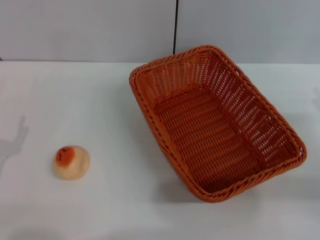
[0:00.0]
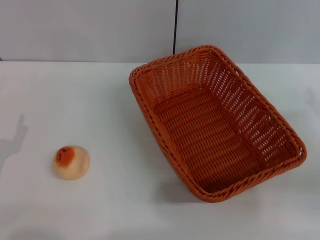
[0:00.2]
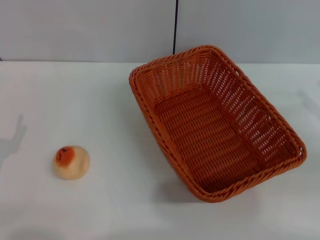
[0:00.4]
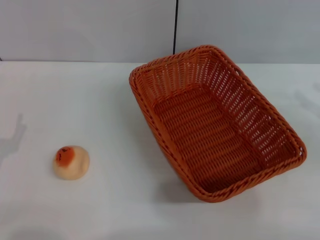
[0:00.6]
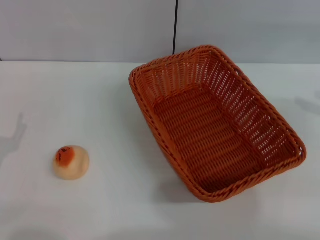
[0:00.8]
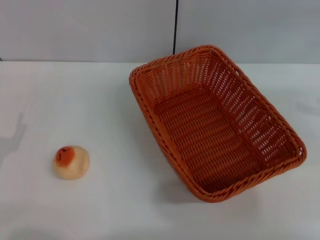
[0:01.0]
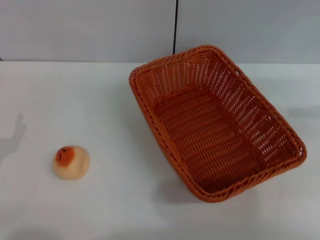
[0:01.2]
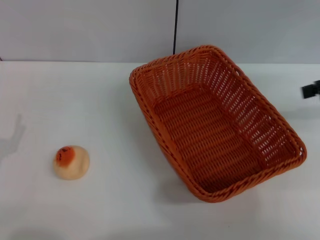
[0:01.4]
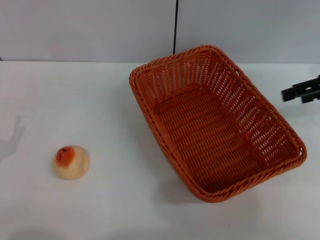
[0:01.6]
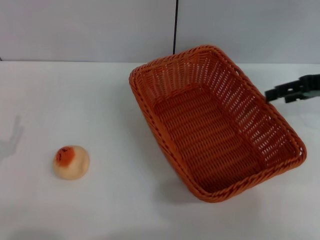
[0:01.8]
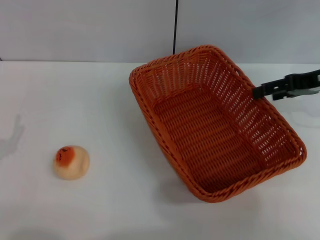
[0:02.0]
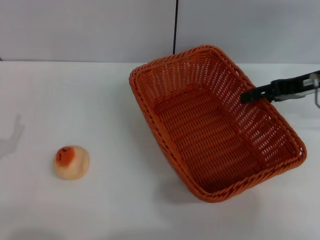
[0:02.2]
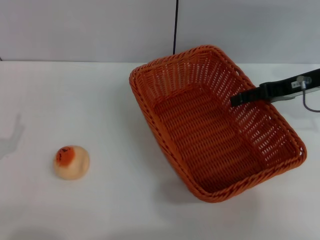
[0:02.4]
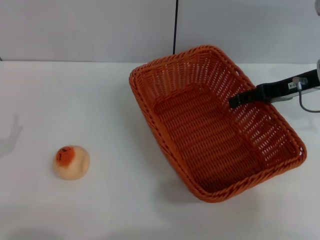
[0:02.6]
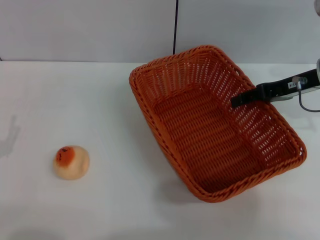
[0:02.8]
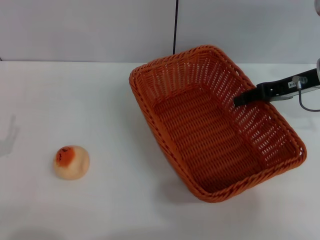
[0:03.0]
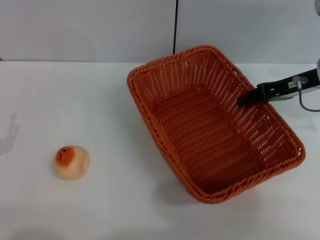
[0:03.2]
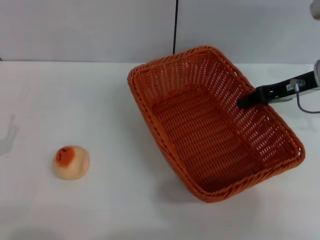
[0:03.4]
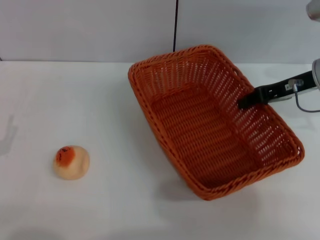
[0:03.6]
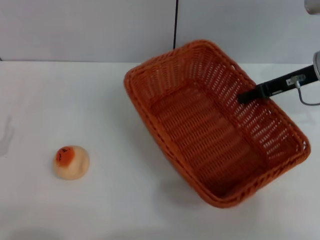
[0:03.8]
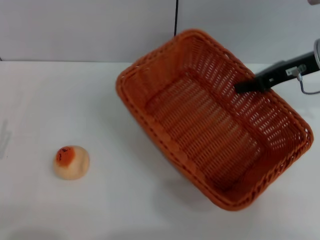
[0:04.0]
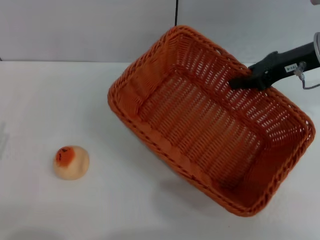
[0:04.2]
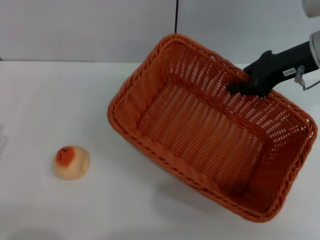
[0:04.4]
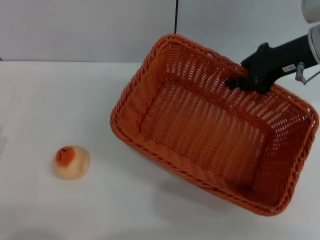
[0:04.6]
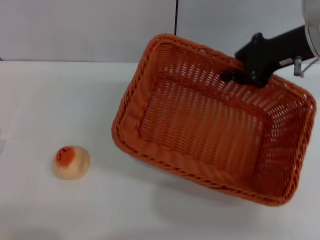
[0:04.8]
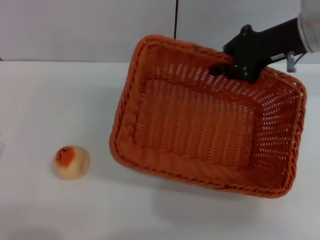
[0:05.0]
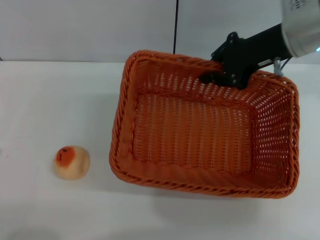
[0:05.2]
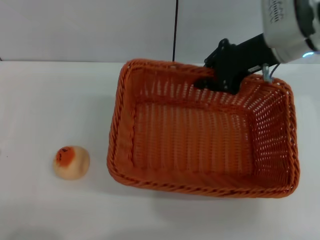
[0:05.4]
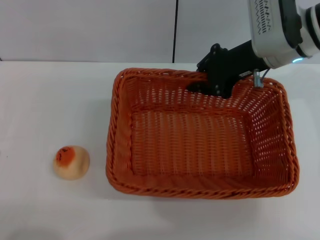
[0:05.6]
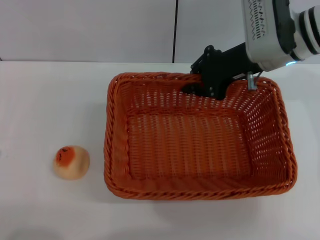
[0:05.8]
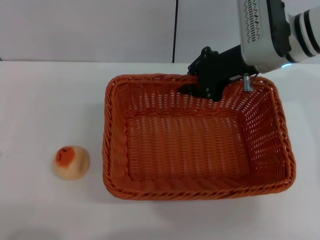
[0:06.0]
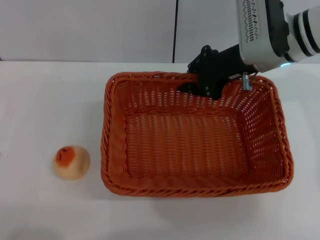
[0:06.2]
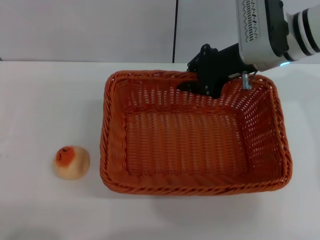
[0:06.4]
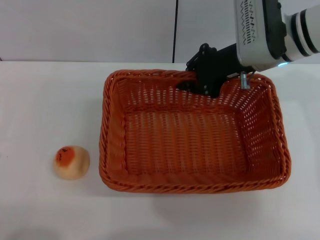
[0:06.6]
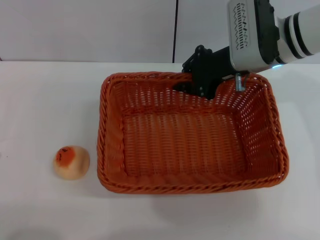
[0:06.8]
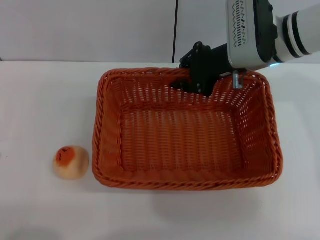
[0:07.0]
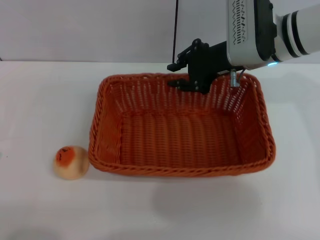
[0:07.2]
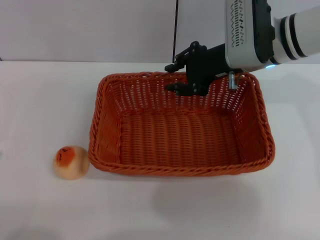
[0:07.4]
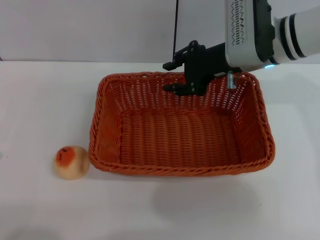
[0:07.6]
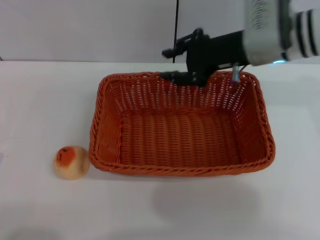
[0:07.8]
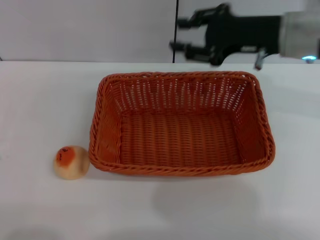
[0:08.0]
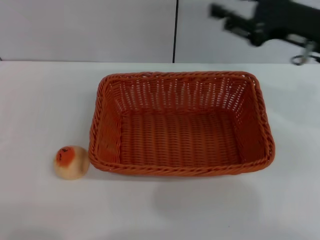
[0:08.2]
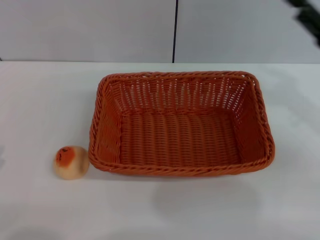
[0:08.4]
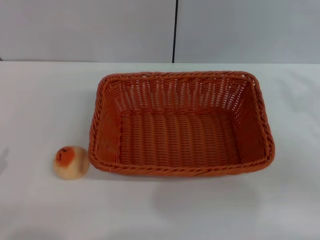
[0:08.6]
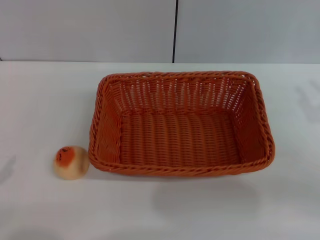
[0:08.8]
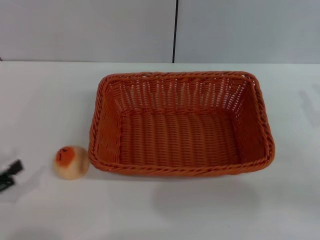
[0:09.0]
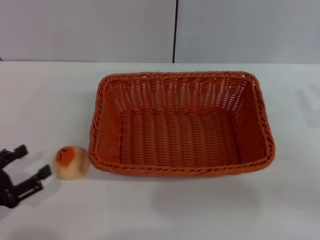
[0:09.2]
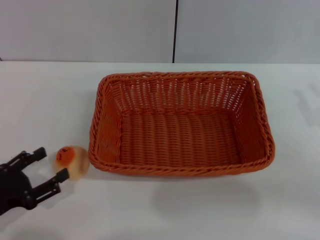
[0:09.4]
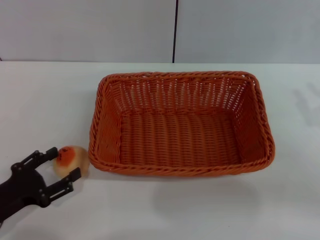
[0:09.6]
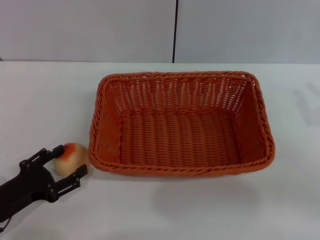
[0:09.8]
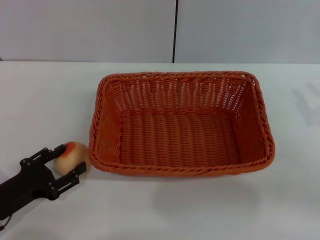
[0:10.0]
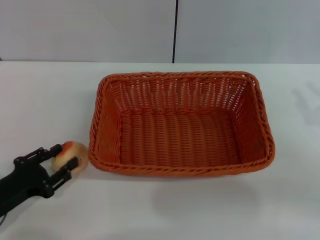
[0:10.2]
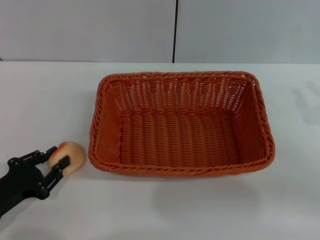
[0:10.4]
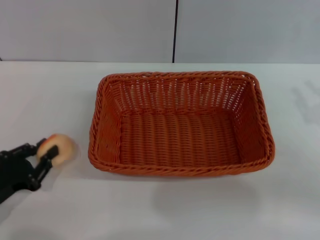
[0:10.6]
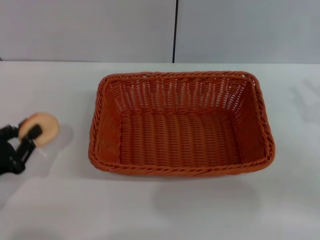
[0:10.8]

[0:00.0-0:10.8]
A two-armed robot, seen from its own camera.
Step, 0.0 to 8.0 s: Move the basket to the center of view with the right gripper.
0.0 to 1.6 s: The right gripper travels upward and forward by roughly 20 cm.
1.6 to 3.0 s: The right gripper shifts approximately 5 cm to the left.
3.0 to 4.6 s: The right gripper changes place by about 5 cm, and closes.
4.6 to 6.2 s: The right gripper shifts approximately 5 cm to the left.
6.2 to 7.8 s: The right gripper opens.
7.8 to 9.2 s: The right gripper is displaced to the right, backward and downward by some 25 cm.
9.2 to 10.8 s: The left gripper closes its fingers.

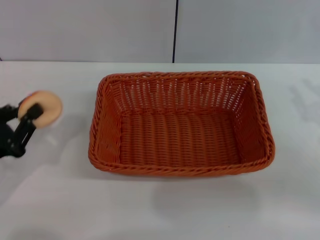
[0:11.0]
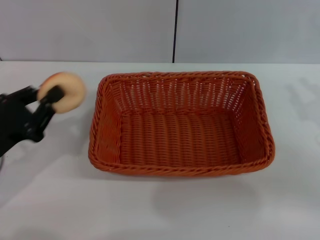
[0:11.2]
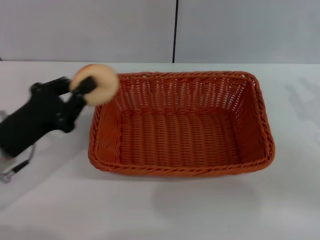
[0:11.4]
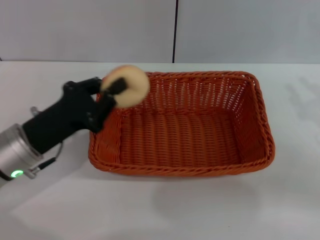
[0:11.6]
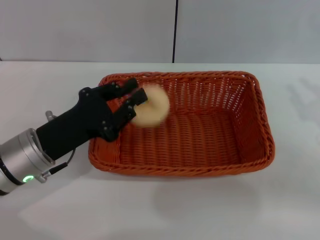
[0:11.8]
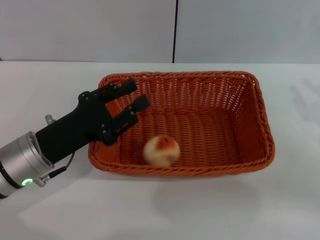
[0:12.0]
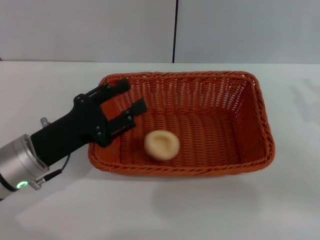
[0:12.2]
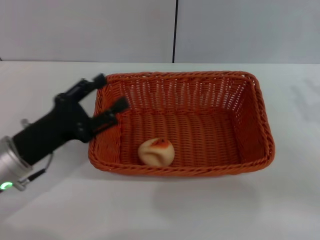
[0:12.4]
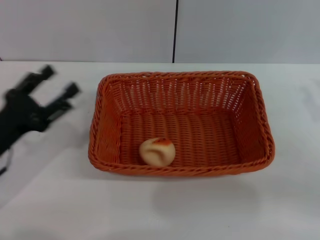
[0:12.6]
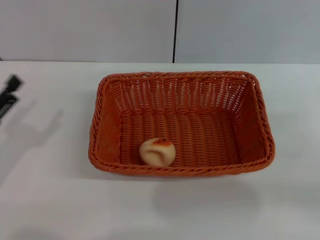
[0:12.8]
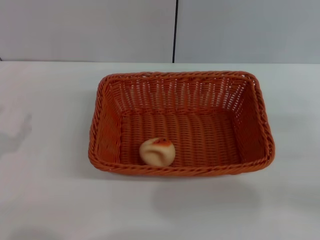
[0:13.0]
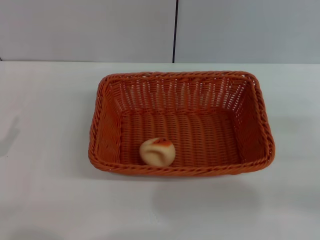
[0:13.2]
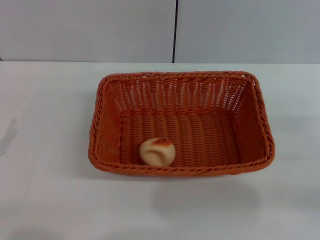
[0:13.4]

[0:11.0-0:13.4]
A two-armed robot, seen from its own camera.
Step, 11.2 to 12.2 s: Place the egg yolk pastry into the basket with the left gripper.
11.0 to 12.2 s: The left gripper is displaced to the right and forward by some 10 cm.
12.2 to 13.4 s: The left gripper shifts roughly 15 cm to the left and backward, and opens.

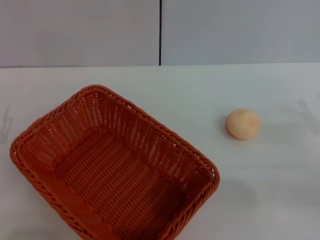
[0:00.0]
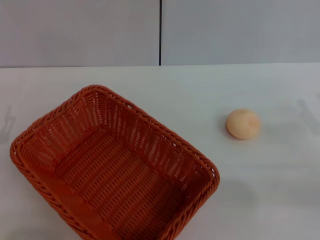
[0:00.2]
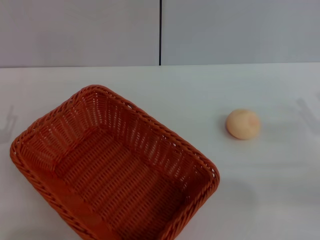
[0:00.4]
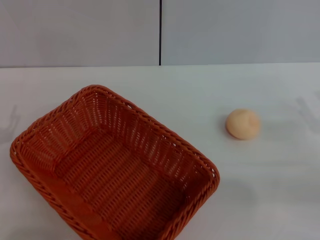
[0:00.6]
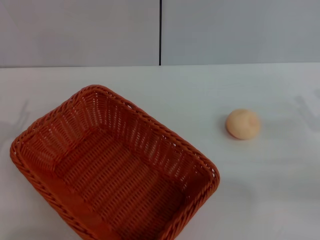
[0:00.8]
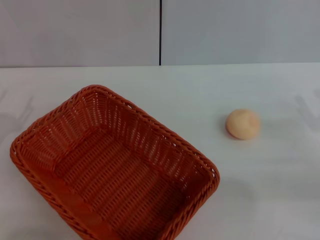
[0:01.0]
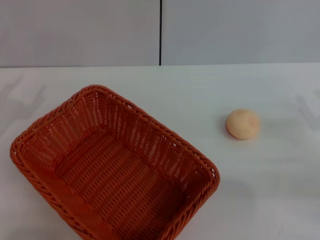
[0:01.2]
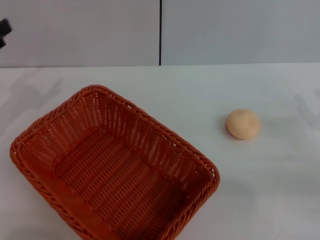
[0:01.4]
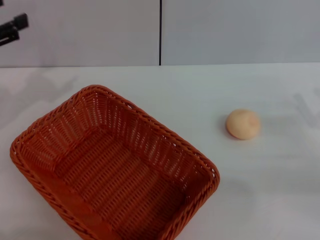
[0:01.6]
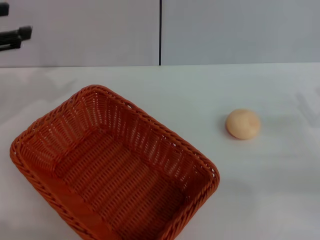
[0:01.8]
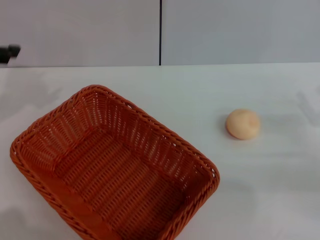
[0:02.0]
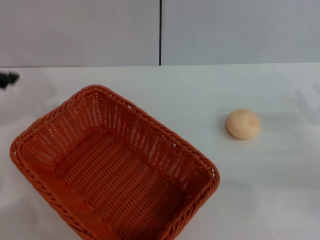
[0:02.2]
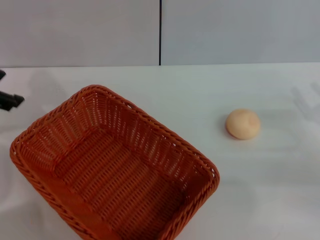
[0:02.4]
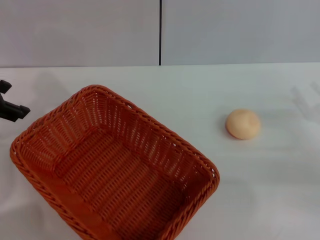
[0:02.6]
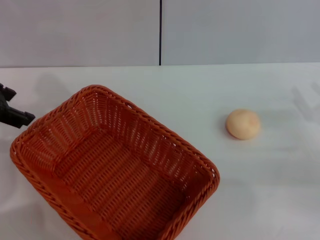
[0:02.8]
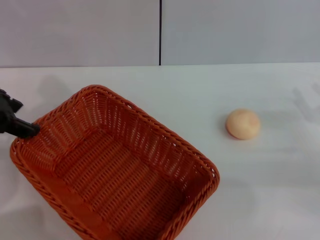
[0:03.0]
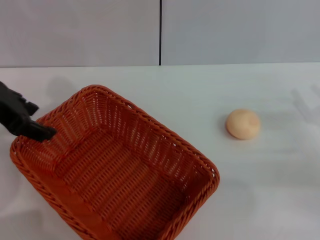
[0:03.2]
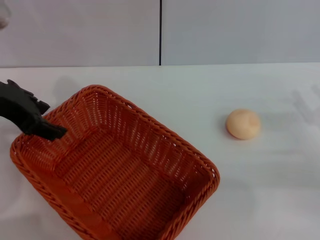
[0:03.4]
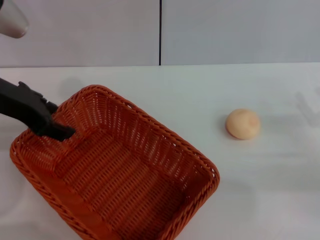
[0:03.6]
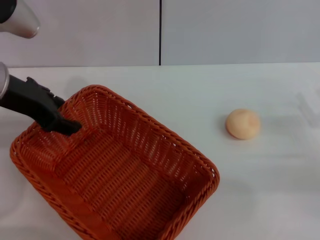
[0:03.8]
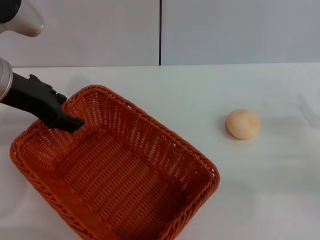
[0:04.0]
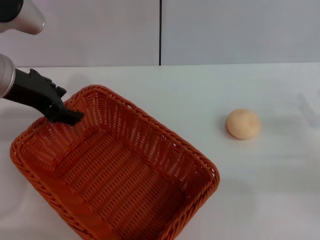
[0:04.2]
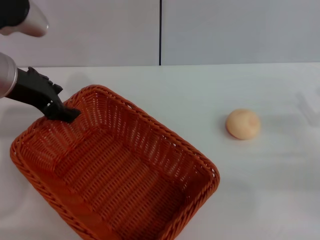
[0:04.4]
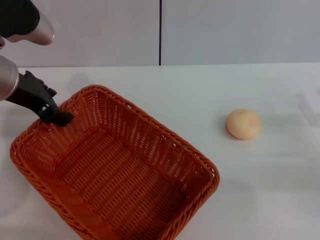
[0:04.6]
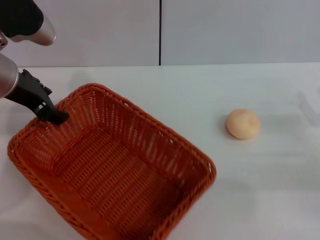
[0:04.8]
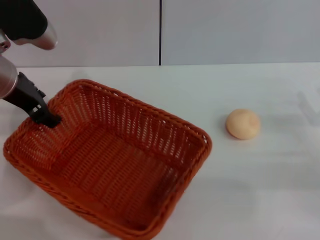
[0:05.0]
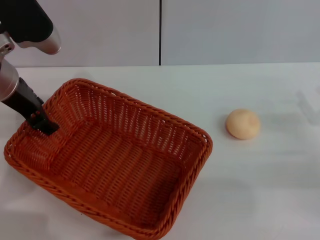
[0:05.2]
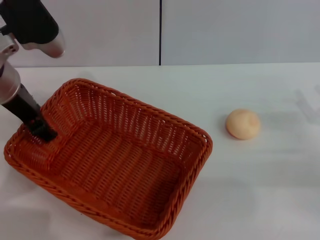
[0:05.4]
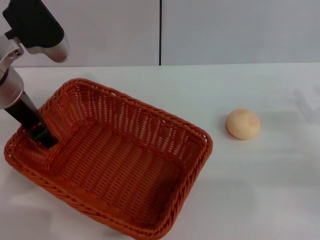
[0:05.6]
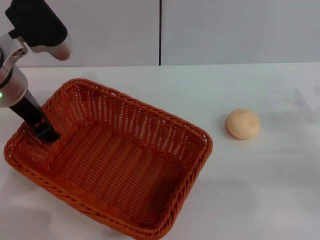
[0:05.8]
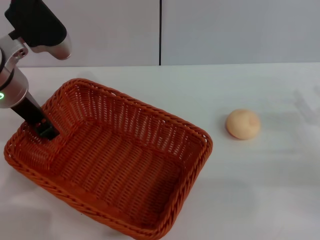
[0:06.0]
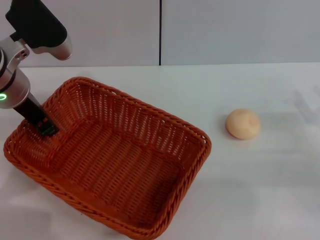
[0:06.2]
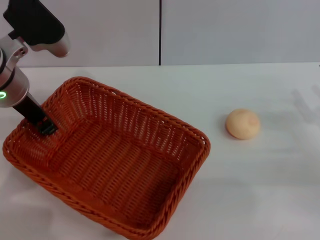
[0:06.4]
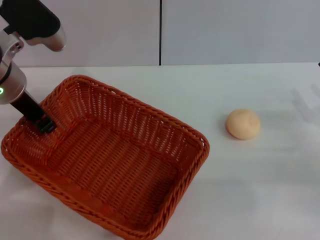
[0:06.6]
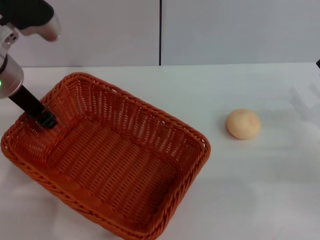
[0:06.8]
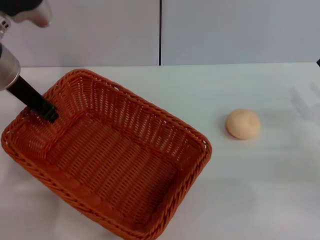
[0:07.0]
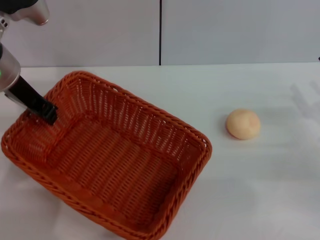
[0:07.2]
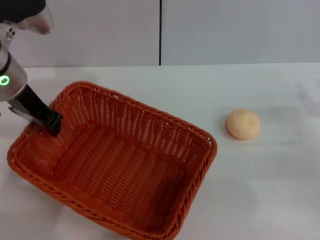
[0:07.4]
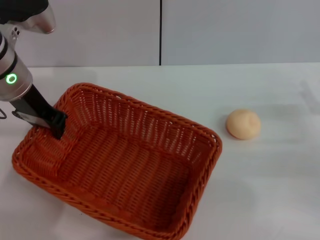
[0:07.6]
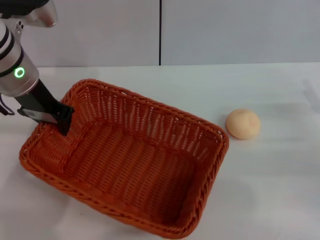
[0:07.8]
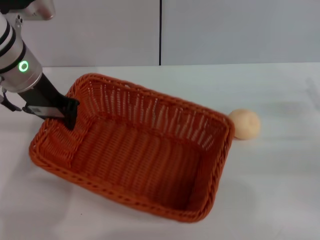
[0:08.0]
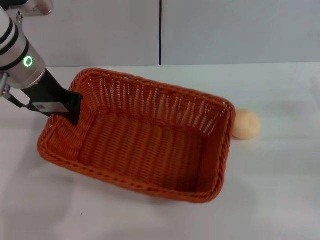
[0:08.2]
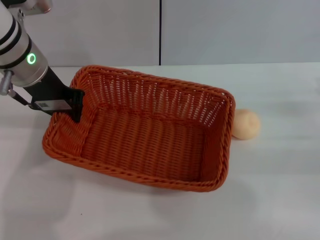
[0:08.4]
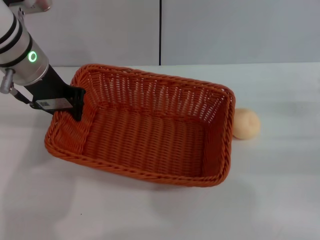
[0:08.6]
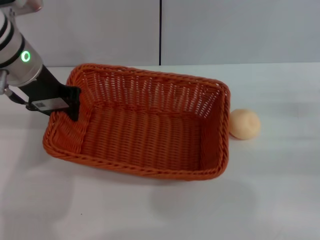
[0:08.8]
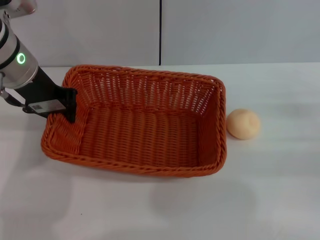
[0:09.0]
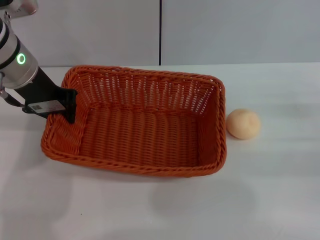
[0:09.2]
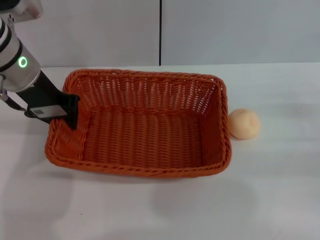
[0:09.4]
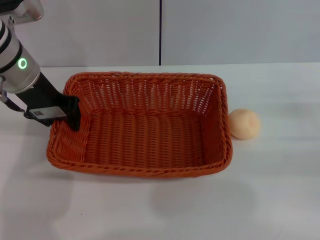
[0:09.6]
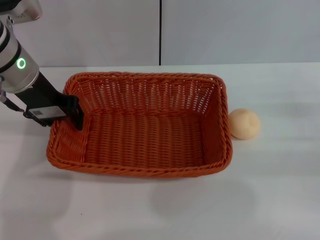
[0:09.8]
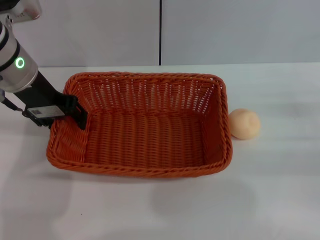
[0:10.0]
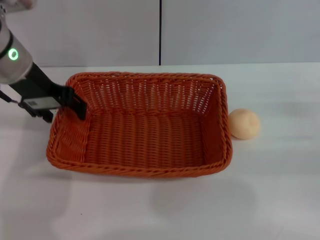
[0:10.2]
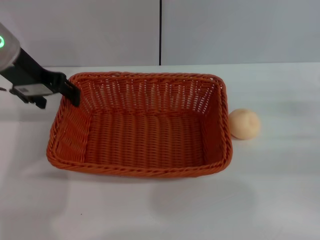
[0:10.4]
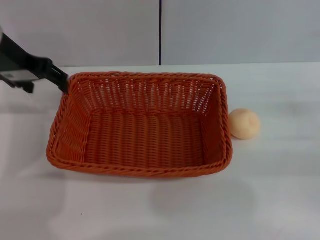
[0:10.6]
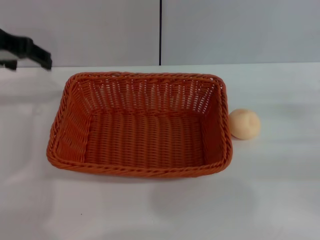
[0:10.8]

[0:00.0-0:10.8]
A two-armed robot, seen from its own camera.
Step, 0.0 to 10.4 s: Move the basket to the center of view with the left gripper.
0.0 to 1.6 s: The left gripper heads upward and forward, covering about 20 cm.
1.6 to 3.0 s: The left gripper travels to the right and upward by about 10 cm.
3.0 to 4.6 s: The left gripper is displaced downward by approximately 5 cm.
4.6 to 6.2 s: The grippers stay close to where they were, moving slightly.
6.2 to 7.8 s: The left gripper closes its fingers.
9.2 to 10.8 s: The left gripper moves upward, roughly 10 cm, and opens up.
